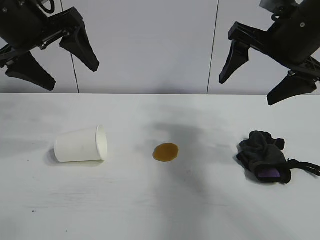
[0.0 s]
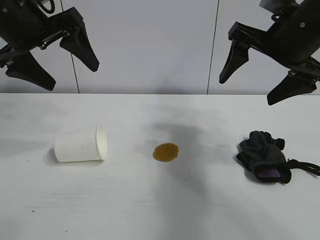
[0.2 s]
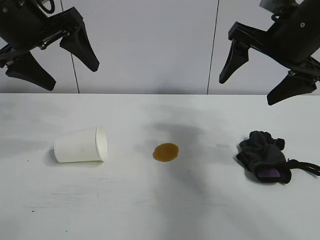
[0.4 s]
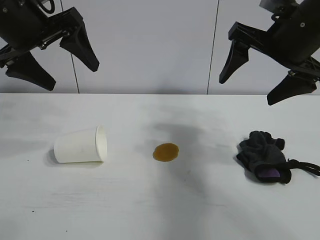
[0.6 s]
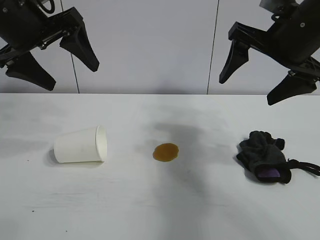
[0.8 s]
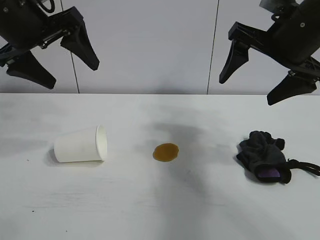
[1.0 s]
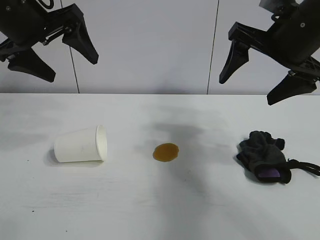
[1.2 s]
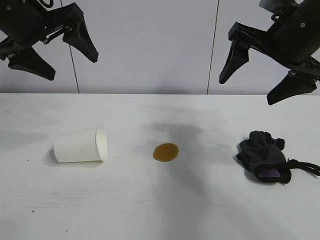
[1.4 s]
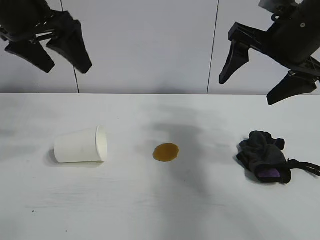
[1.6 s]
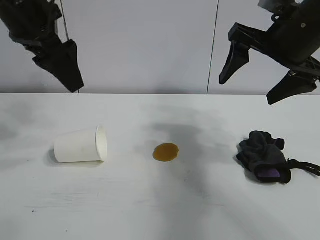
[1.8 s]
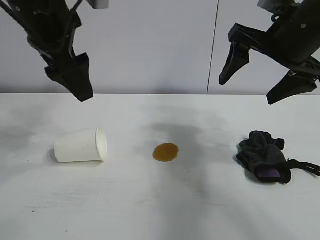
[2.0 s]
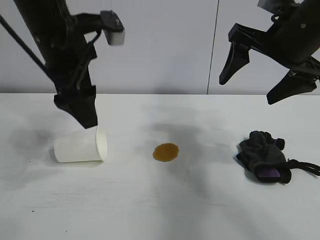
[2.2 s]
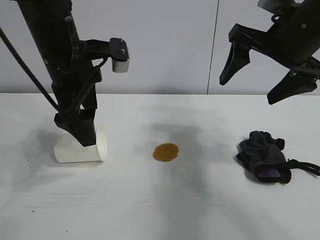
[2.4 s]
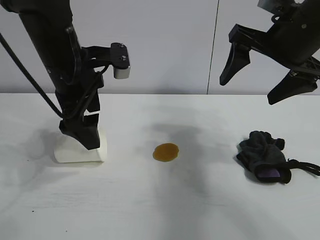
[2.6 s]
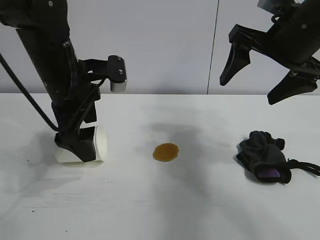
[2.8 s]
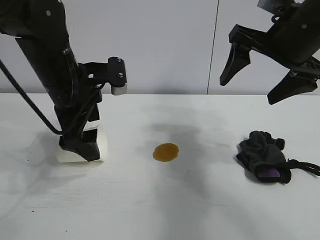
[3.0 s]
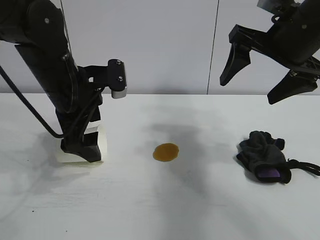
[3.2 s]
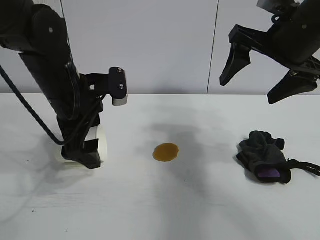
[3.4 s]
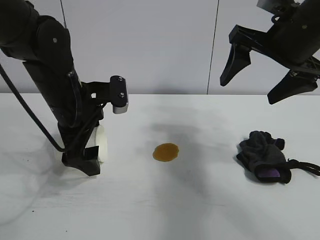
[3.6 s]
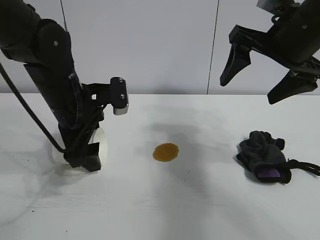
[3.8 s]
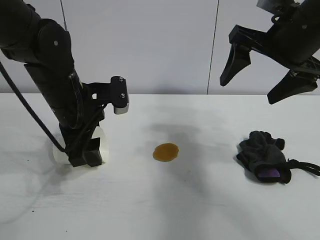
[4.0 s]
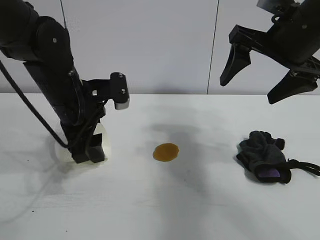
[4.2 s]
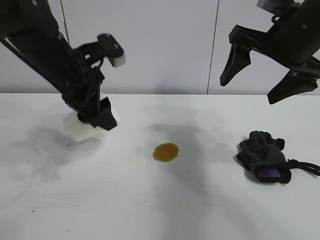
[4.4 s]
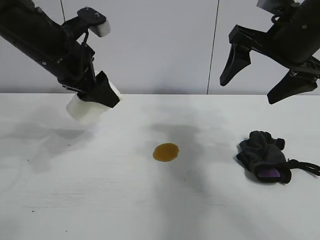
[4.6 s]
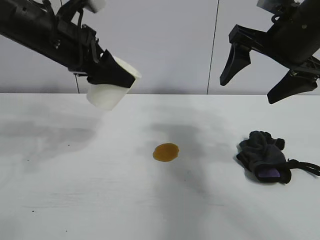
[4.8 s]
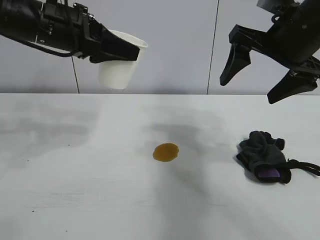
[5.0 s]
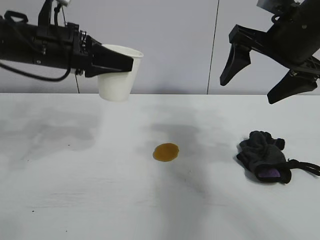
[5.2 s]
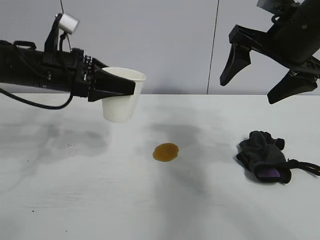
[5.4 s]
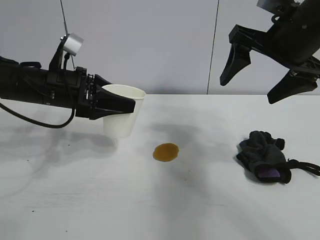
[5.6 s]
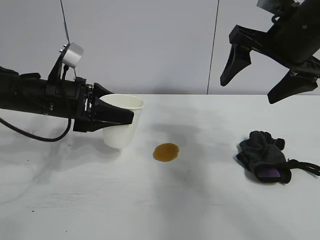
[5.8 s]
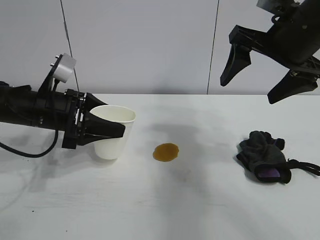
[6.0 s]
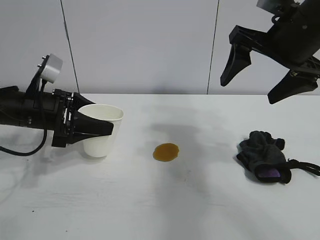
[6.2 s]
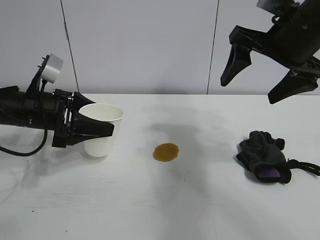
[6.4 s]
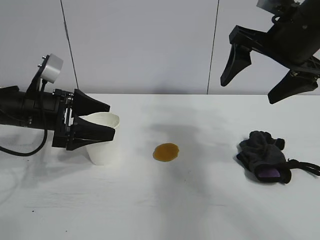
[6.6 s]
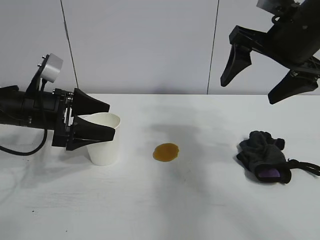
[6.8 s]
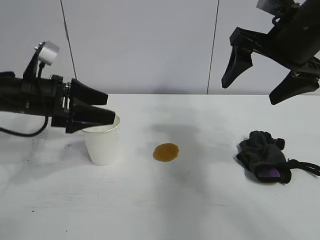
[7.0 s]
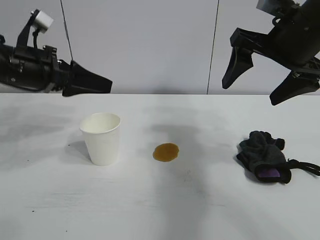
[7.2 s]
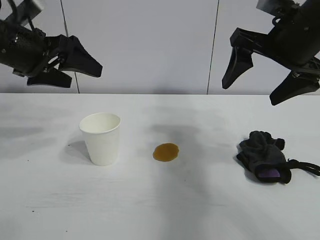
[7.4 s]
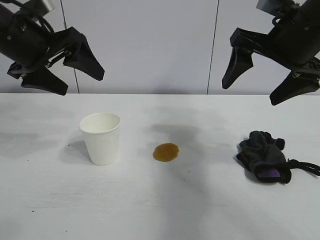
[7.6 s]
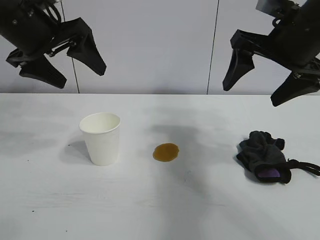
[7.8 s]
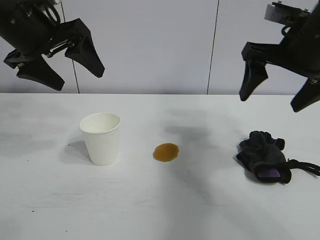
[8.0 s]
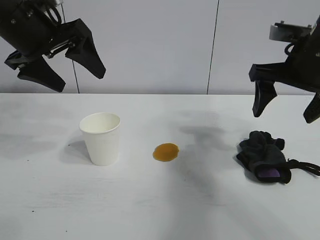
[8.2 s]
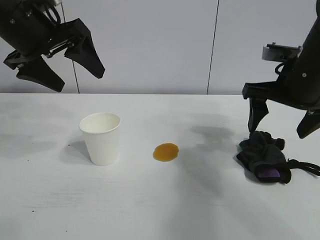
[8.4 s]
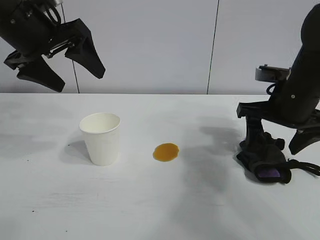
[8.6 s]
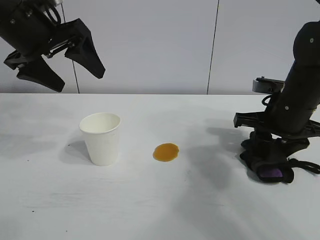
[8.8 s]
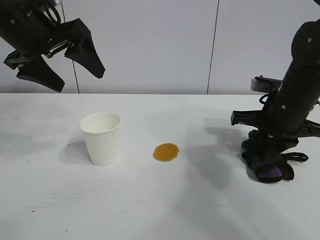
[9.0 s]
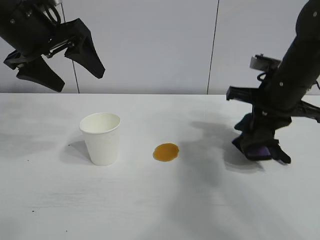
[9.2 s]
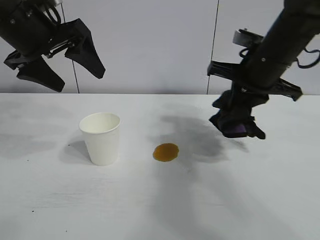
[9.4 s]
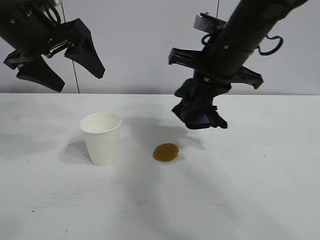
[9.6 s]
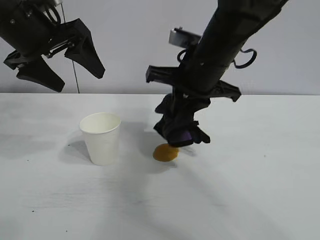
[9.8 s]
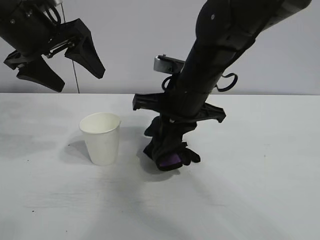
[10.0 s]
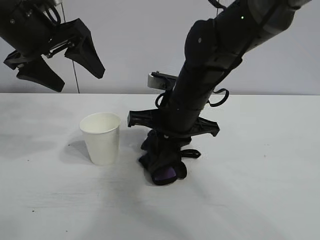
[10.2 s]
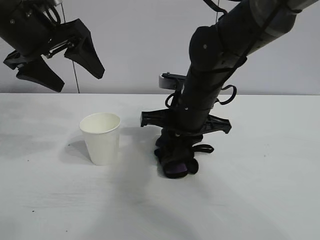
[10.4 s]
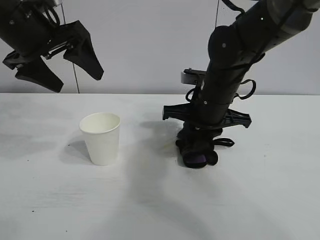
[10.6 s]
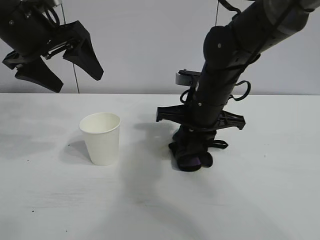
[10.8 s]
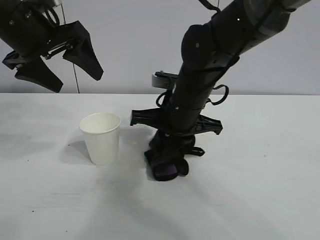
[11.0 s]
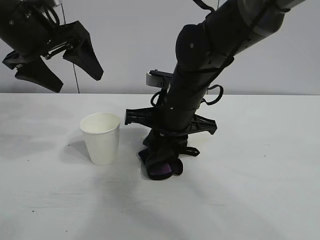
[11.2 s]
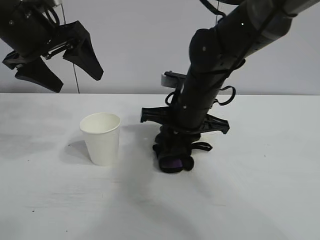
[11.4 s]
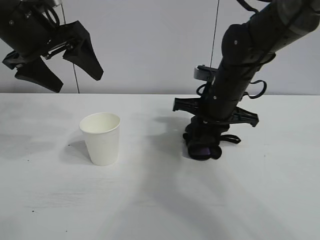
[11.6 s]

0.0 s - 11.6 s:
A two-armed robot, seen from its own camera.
Task of the whole recording: the left gripper pick up the fallen cup and place it upright, the right gripper grasp the black rag and wipe the stain on the table, the right gripper put the black rag back in its original position.
Step, 1.0 s - 3.8 s: Grasp the paper cup with left gripper.
Step, 4.0 s - 6.6 s: Stand the paper cup upright with left gripper.
Step, 6.8 s - 9.0 s: Grasp the rag with right gripper.

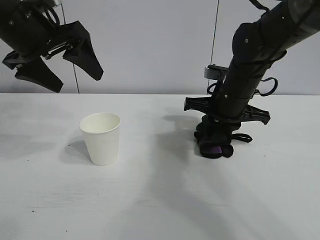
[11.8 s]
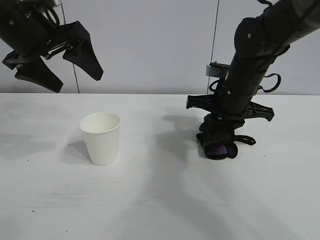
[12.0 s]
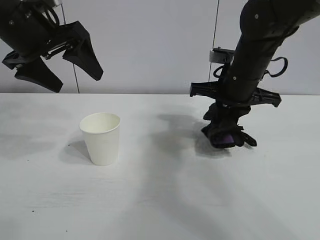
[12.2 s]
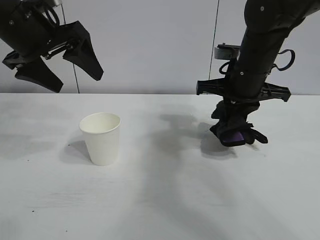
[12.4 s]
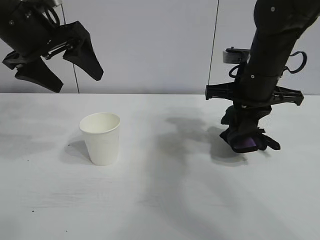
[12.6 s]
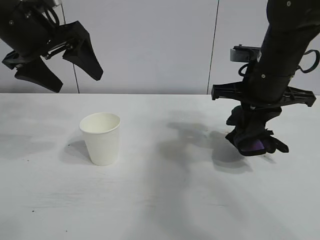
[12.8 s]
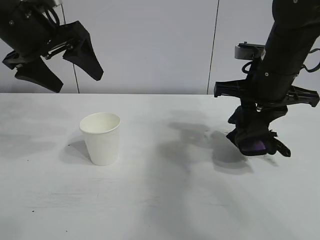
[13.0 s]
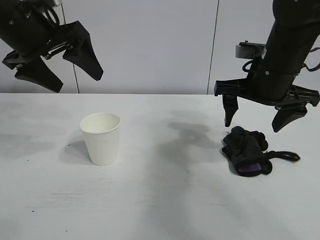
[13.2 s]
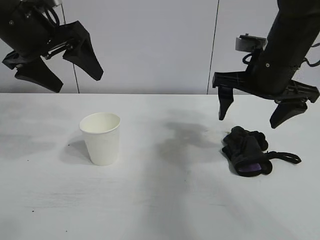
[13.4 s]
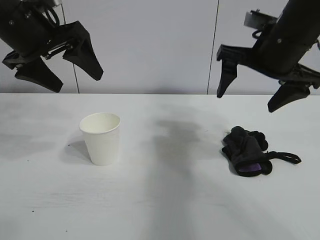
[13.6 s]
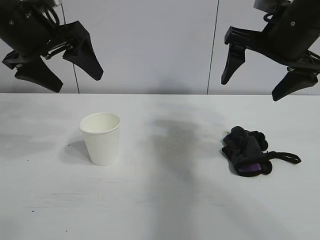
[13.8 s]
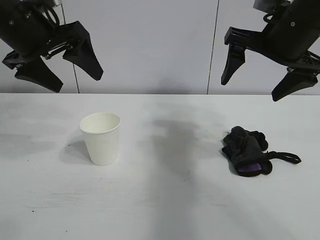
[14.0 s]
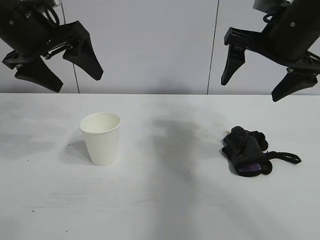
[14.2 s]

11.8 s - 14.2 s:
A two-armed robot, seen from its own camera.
Task of the whole recording: the left gripper pick up the fallen cup and place it upright, the right gripper grasp the black rag and wipe the stain on the table, the right gripper put the black rag back in its original position.
Step, 12.0 s - 13.0 s: Place the rag on the table with right gripper.
